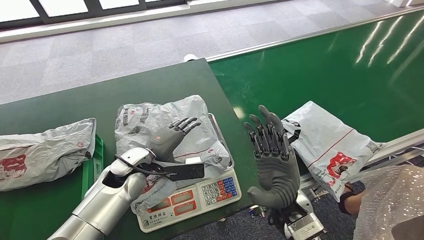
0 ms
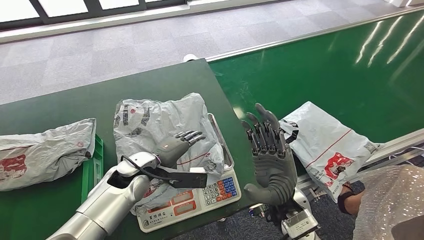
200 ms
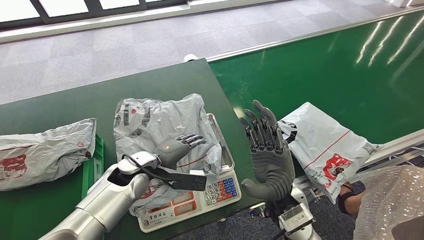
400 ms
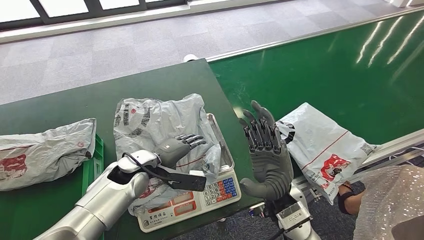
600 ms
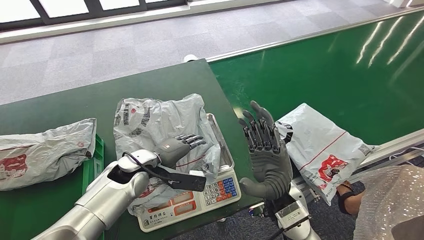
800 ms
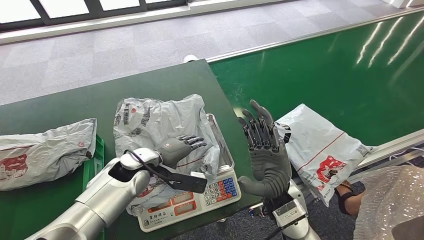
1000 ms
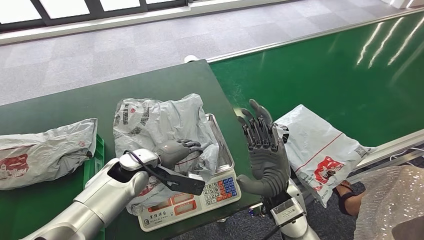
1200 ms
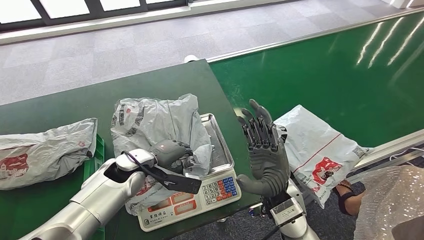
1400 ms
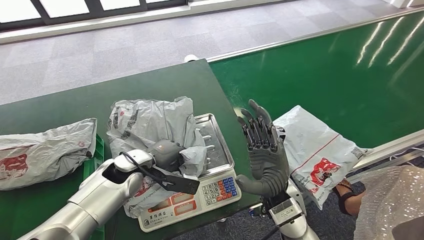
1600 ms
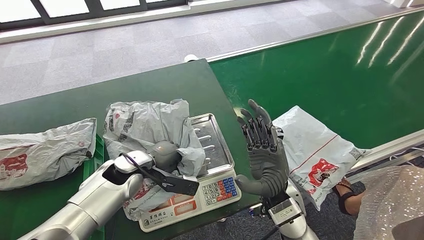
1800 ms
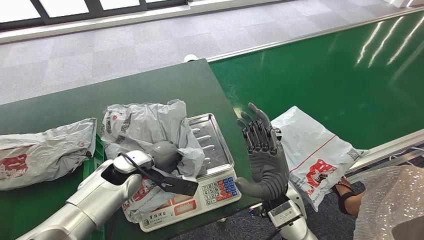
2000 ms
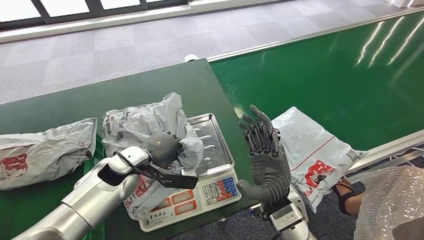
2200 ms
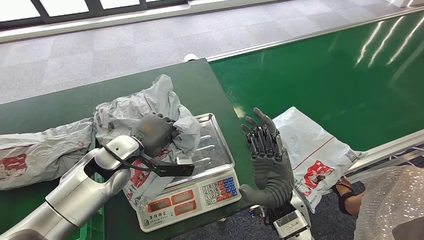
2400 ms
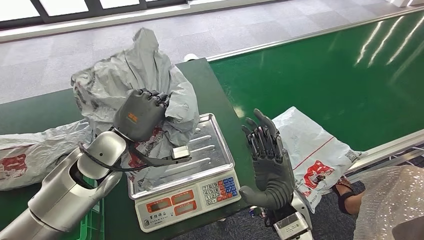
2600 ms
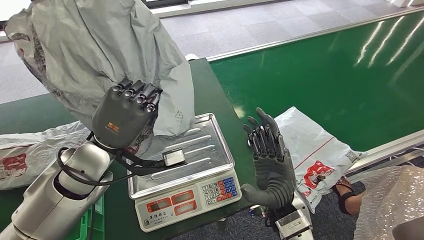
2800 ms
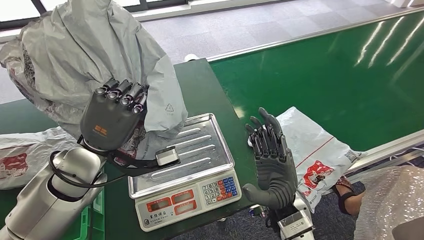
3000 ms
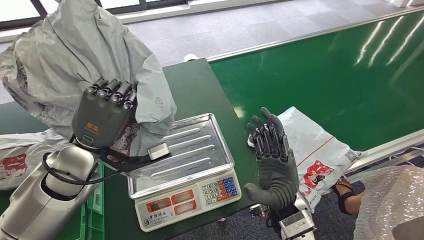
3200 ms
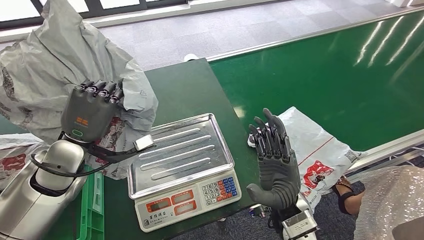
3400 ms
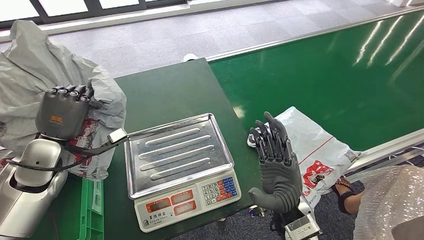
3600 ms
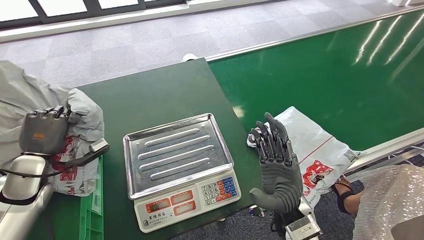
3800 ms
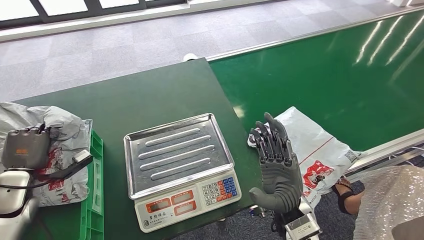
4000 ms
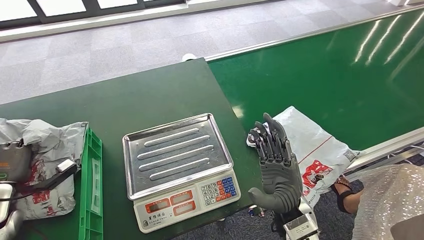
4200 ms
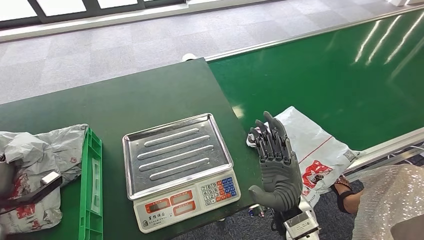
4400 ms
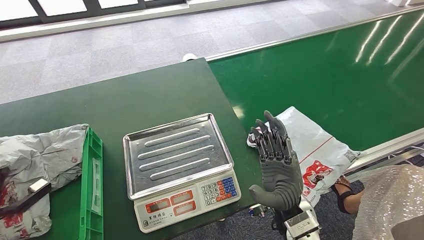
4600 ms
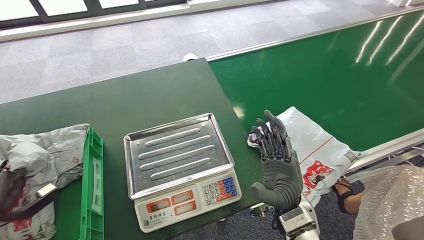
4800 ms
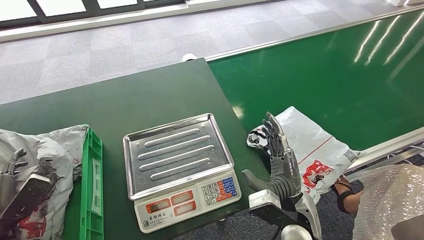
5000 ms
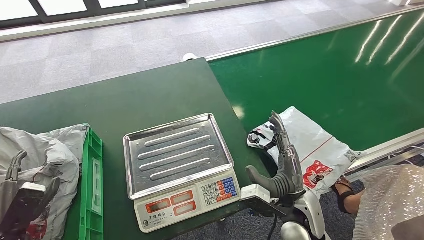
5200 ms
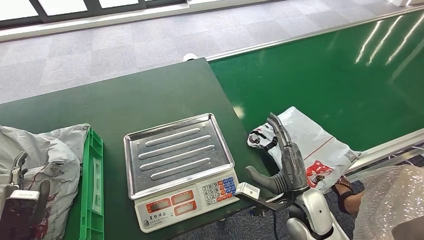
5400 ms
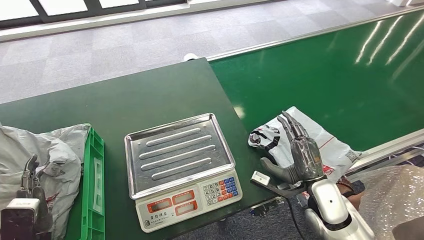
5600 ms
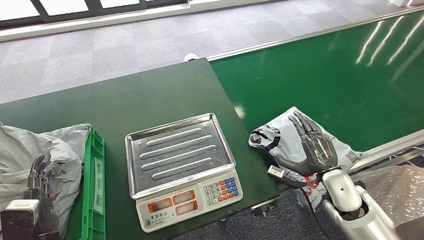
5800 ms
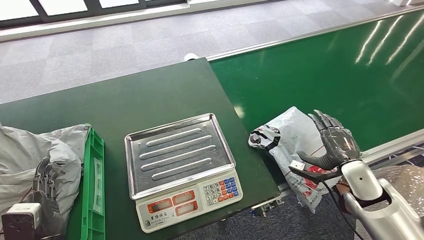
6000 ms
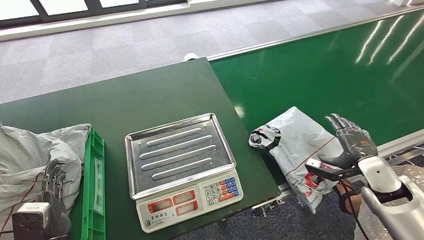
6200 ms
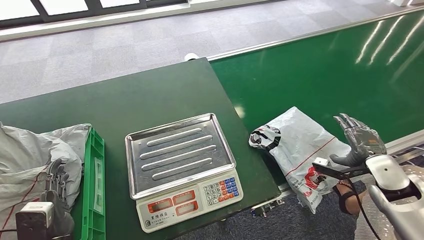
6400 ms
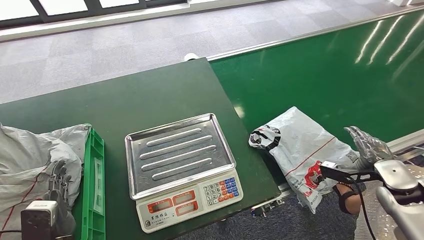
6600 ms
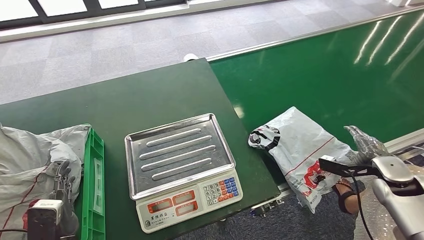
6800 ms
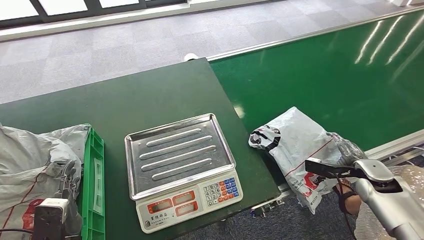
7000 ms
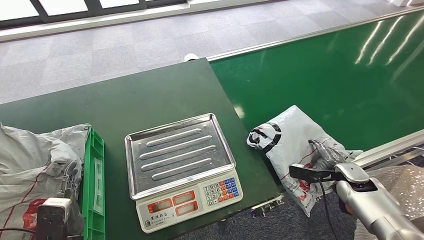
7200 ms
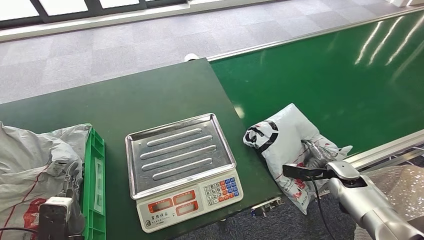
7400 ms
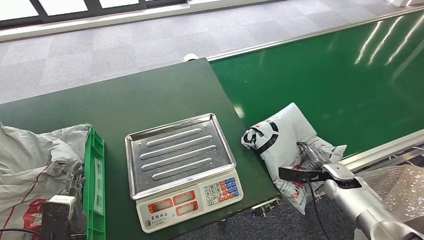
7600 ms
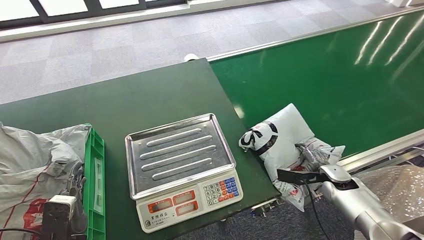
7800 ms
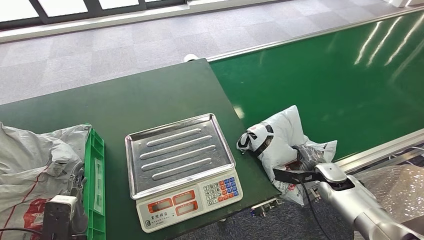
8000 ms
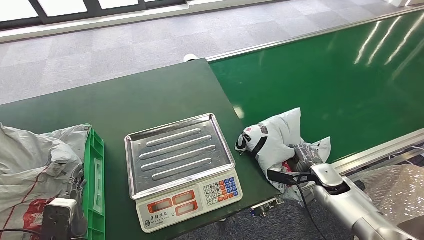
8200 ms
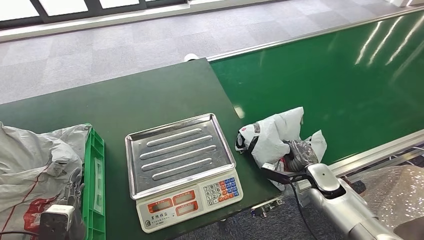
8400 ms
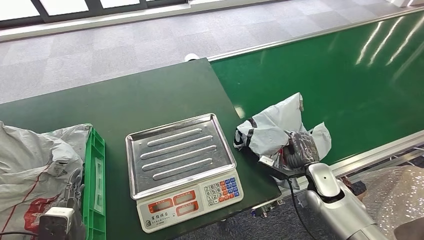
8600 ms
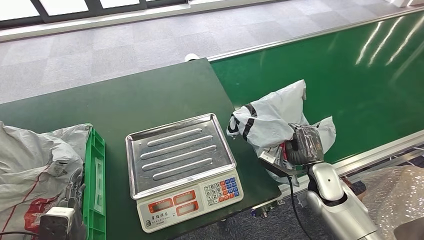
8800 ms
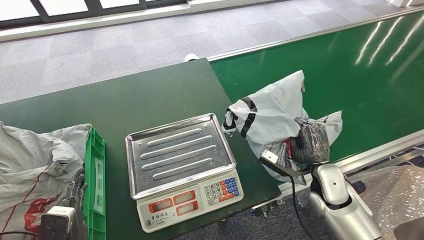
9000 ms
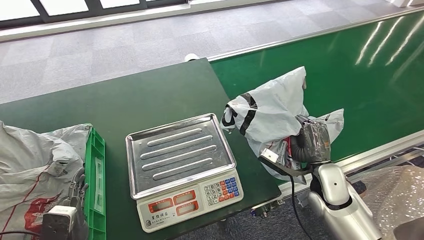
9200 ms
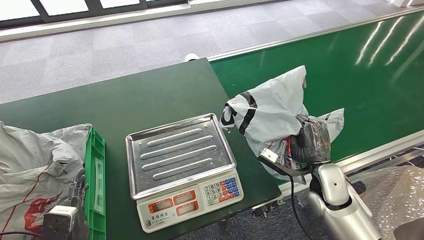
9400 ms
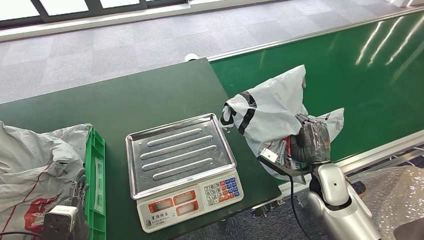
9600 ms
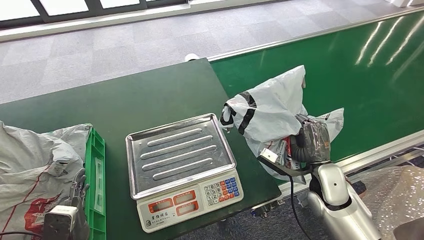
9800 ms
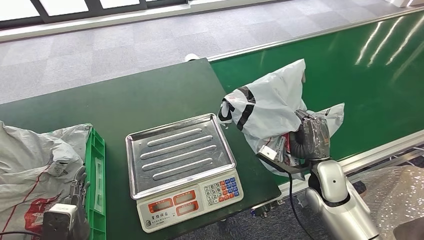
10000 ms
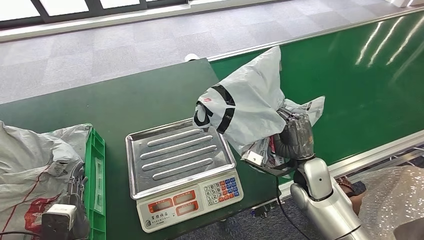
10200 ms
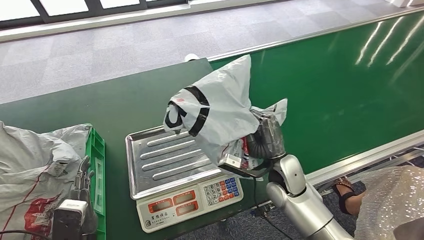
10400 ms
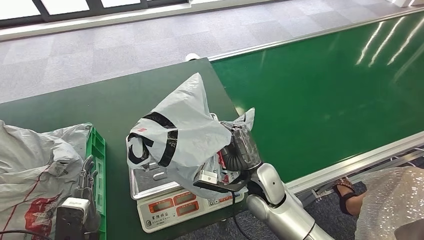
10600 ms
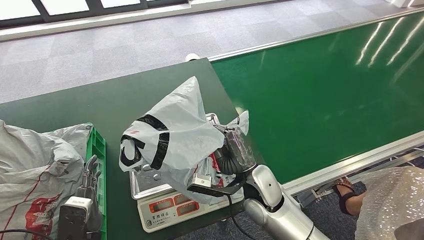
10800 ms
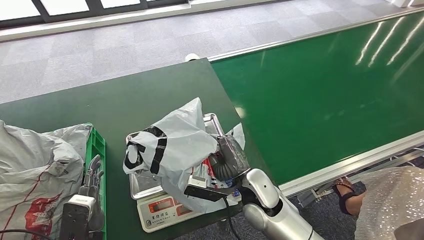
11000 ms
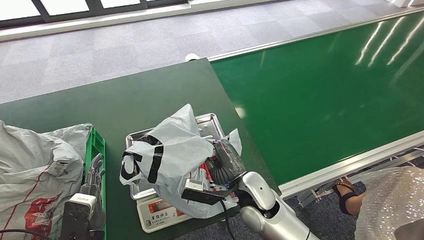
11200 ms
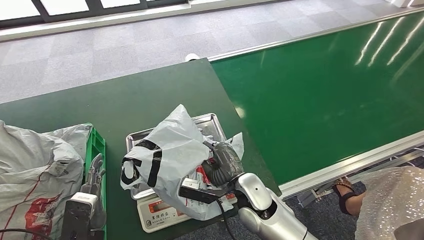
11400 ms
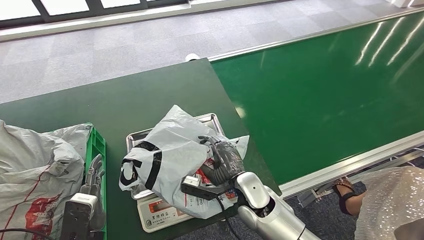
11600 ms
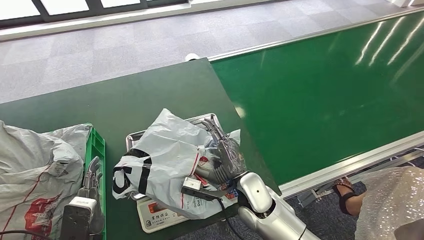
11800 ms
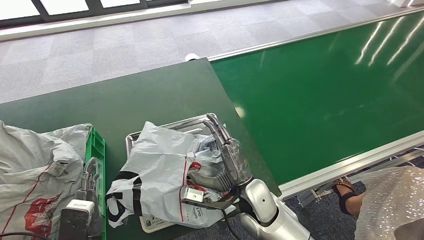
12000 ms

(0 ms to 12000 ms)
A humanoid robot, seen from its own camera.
Step, 200 ms - 3000 ms: Pick up the parcel from the inbound machine.
Step, 3200 ms - 7000 ms: Place the parcel into the delivery box.
Step, 7200 ms - 9200 ms: Pick up the parcel from the conveyor belt.
6000 ms - 7600 ms: The right hand heads downward and forward, covering approximately 10 cm.
7600 ms - 9000 ms: The right hand is displaced to the left and upward by approximately 15 cm.
9000 ms - 10400 ms: The right hand travels to the left and forward by some 10 cm.

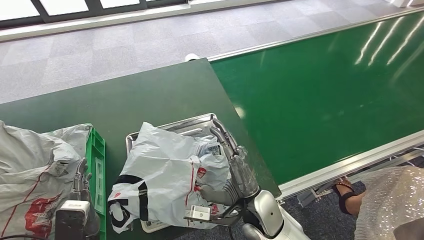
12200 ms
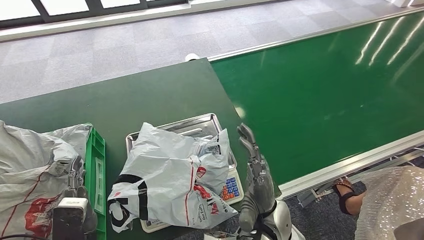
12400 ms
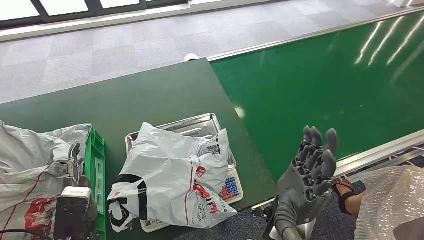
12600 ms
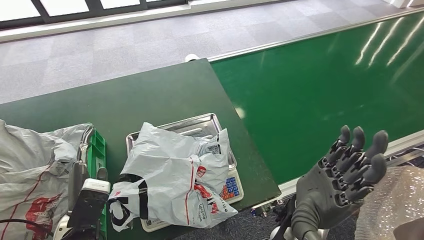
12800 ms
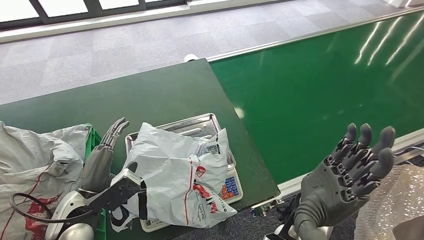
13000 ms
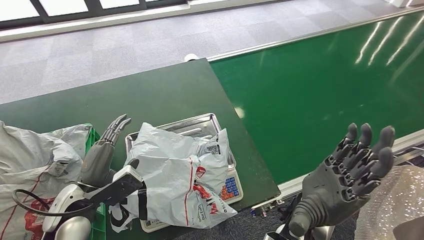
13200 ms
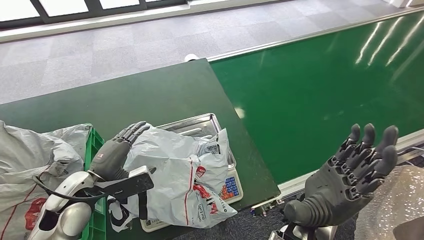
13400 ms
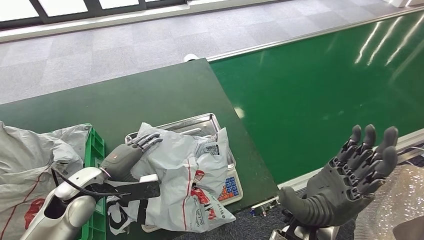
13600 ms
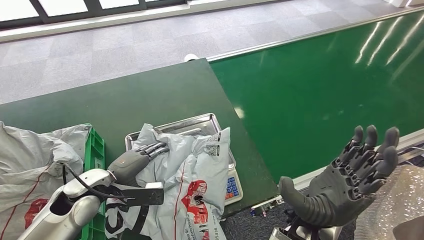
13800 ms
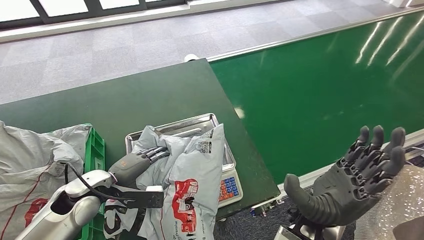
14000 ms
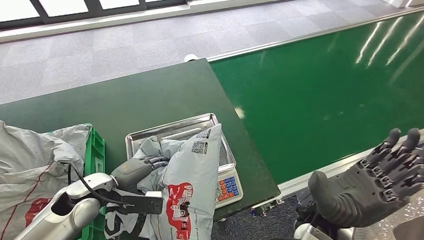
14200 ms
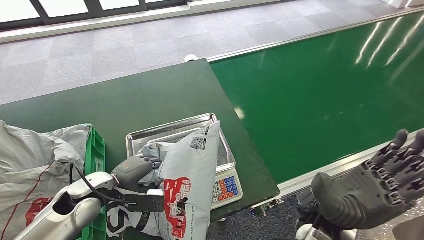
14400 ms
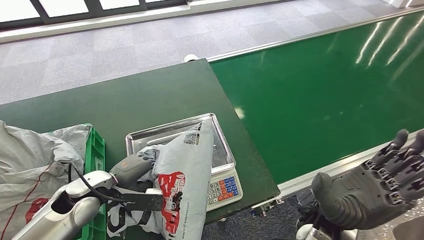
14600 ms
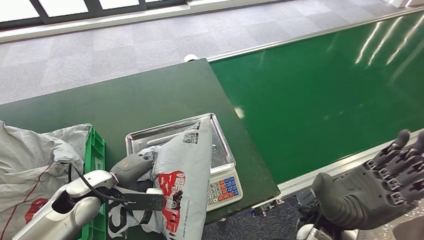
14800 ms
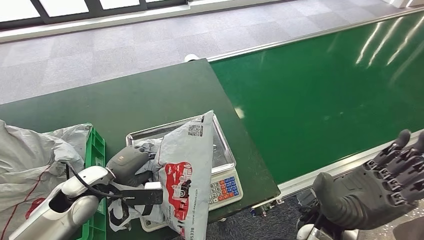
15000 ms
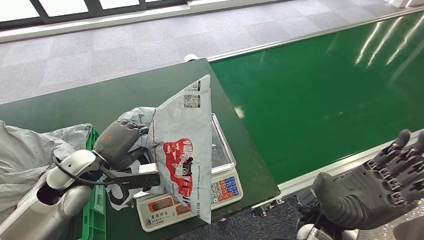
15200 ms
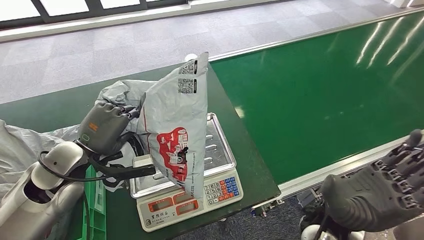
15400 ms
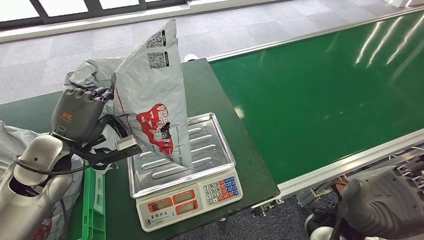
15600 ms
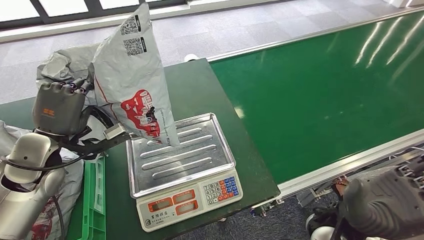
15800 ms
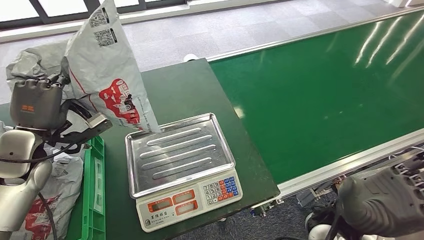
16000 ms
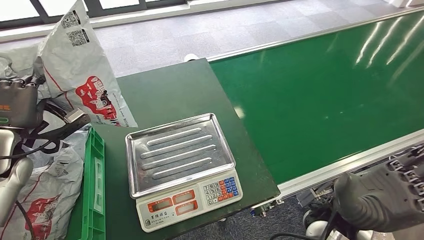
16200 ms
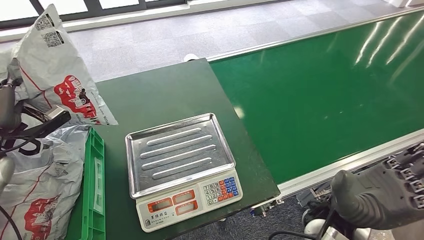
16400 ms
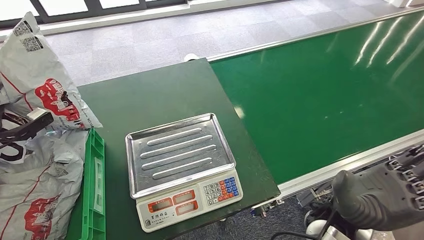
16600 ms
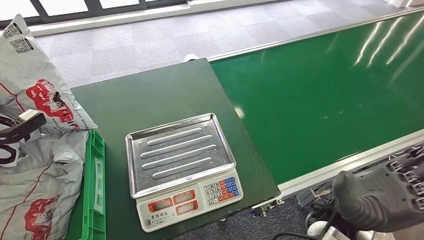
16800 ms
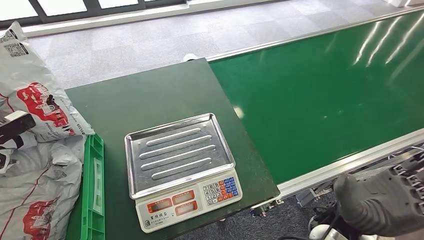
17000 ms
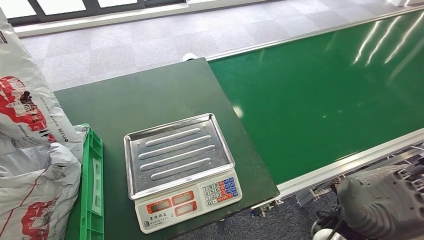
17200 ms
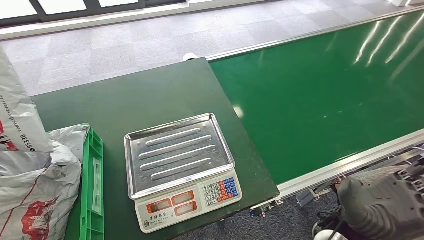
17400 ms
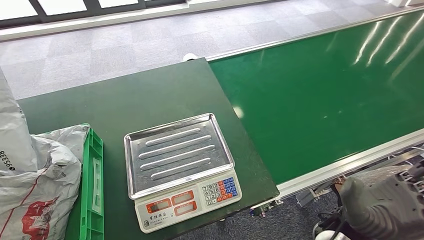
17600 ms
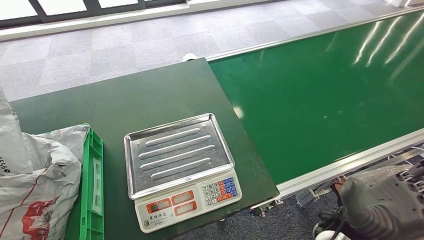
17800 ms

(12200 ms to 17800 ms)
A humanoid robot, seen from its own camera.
Step, 12600 ms - 15800 ms: Pick up the parcel from the inbound machine.
